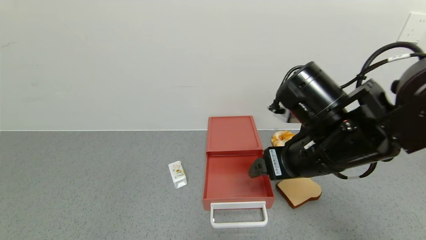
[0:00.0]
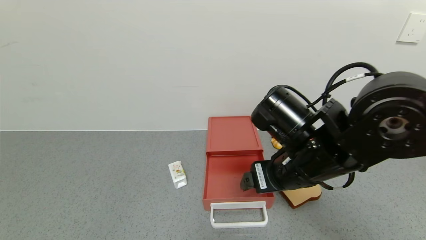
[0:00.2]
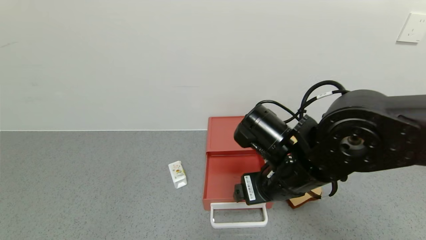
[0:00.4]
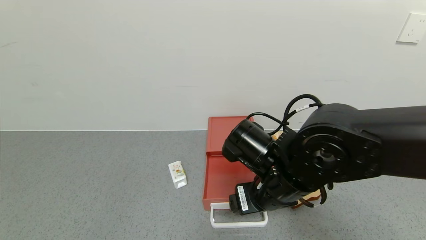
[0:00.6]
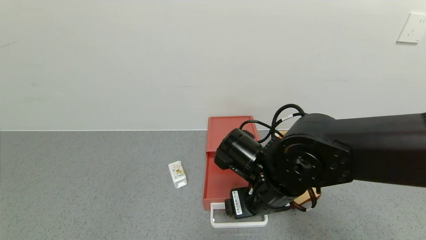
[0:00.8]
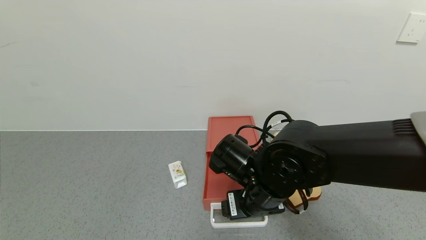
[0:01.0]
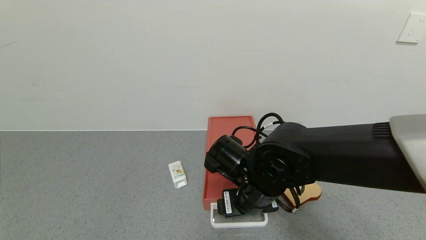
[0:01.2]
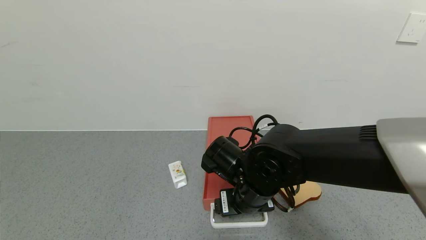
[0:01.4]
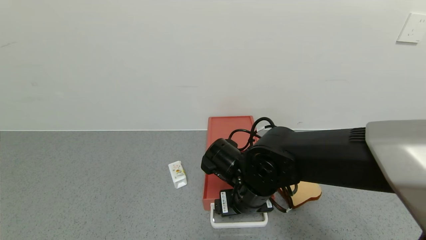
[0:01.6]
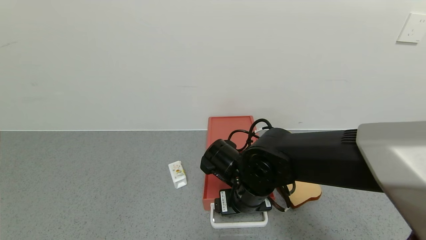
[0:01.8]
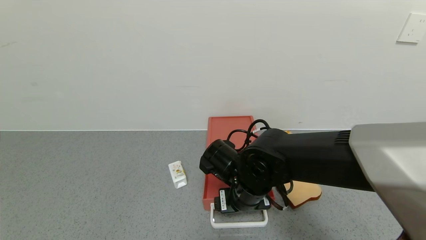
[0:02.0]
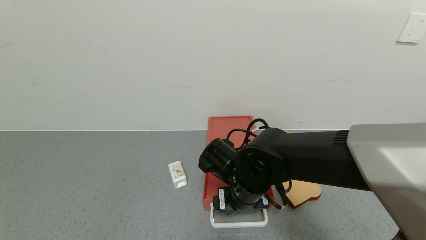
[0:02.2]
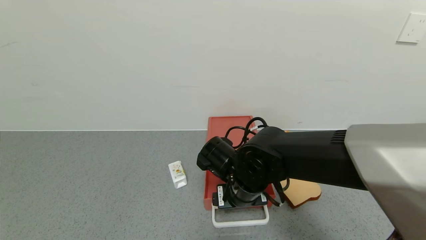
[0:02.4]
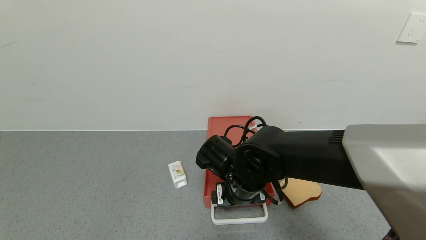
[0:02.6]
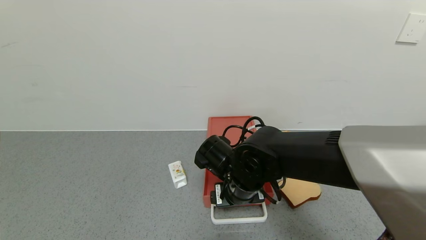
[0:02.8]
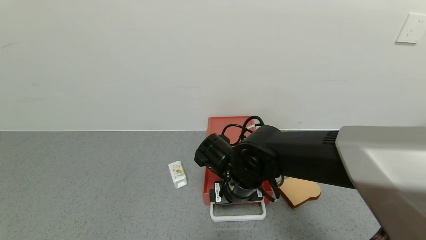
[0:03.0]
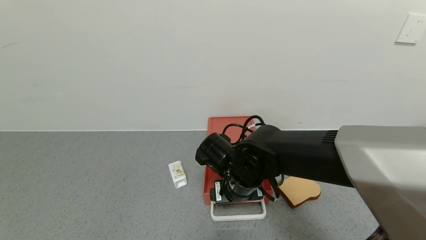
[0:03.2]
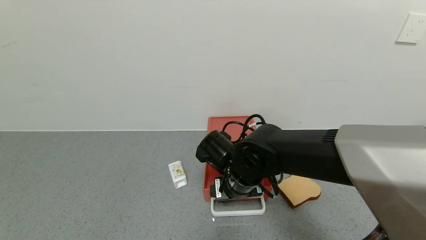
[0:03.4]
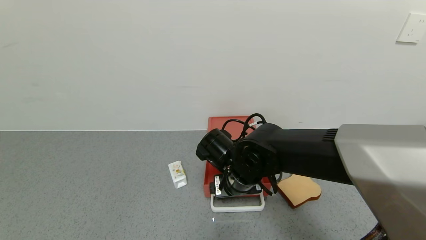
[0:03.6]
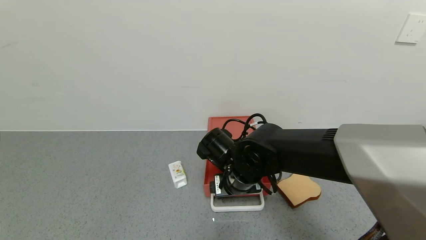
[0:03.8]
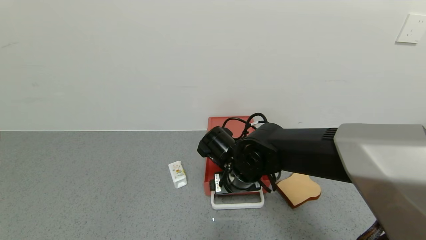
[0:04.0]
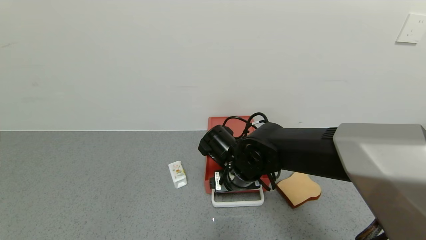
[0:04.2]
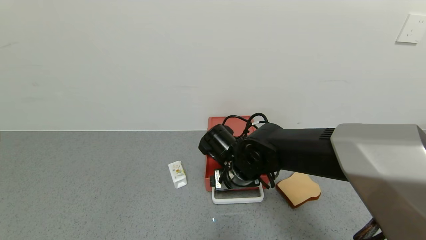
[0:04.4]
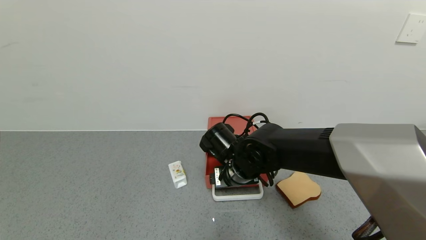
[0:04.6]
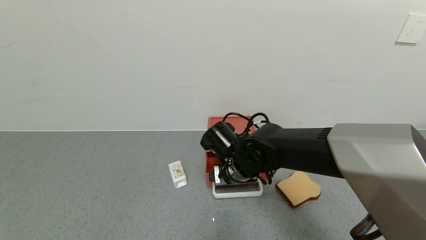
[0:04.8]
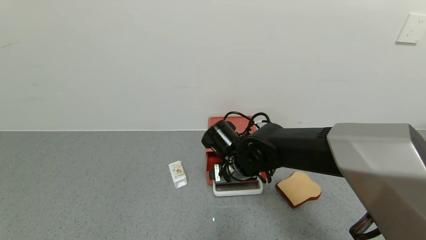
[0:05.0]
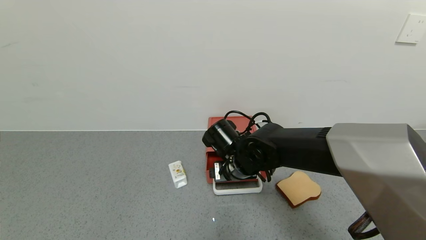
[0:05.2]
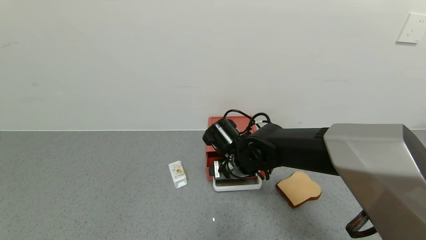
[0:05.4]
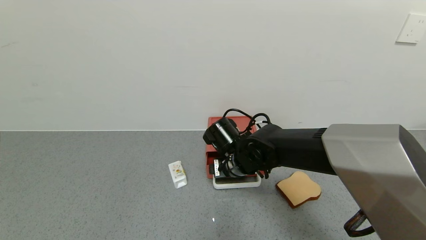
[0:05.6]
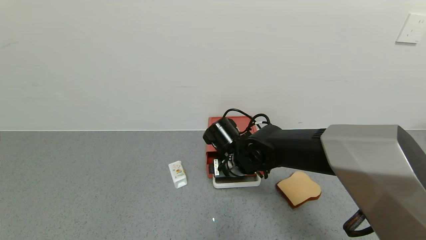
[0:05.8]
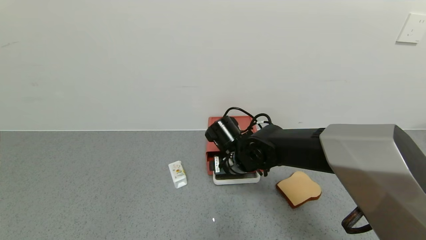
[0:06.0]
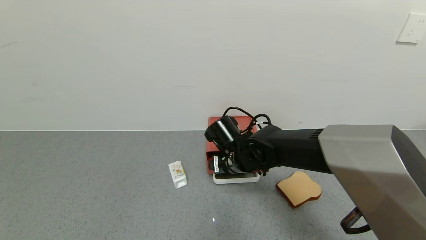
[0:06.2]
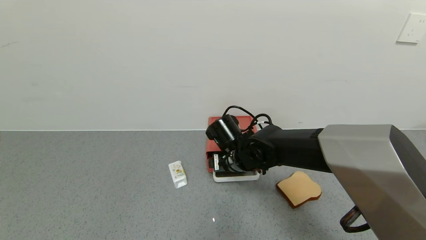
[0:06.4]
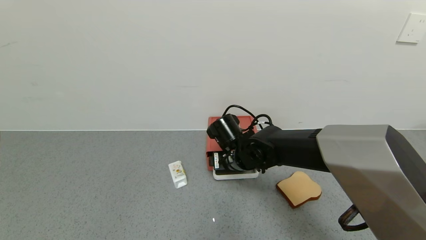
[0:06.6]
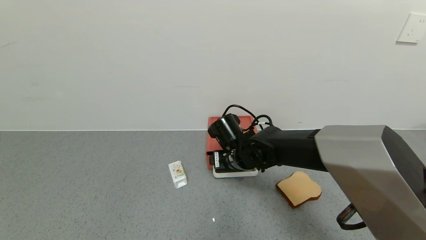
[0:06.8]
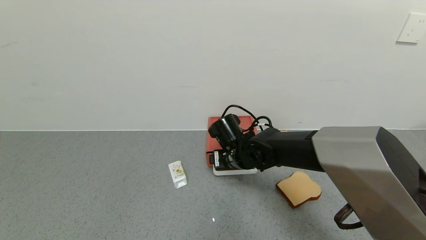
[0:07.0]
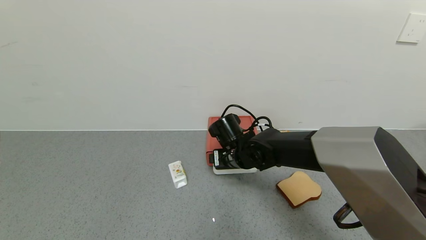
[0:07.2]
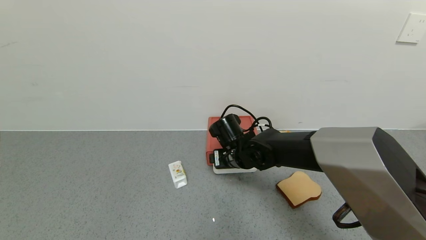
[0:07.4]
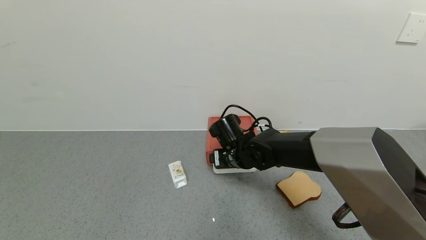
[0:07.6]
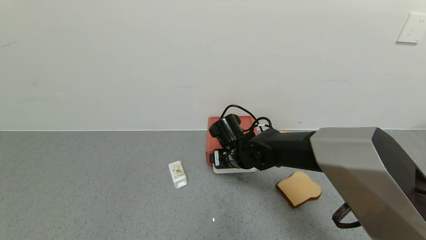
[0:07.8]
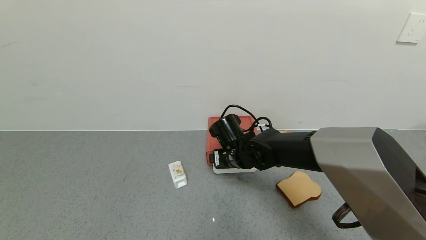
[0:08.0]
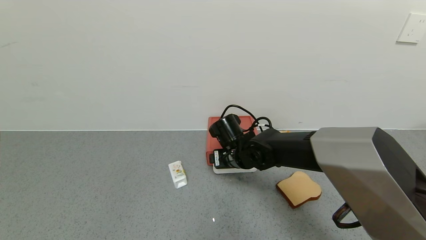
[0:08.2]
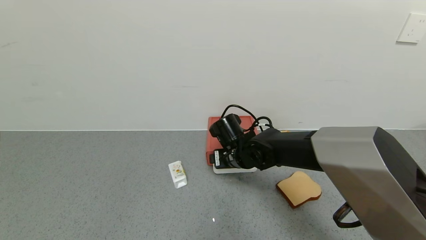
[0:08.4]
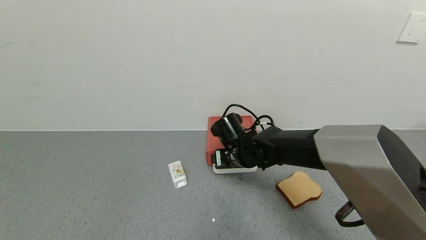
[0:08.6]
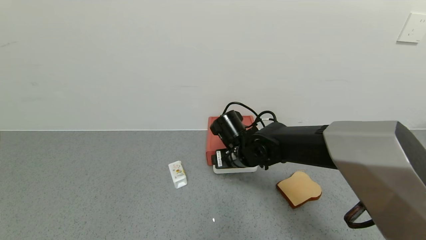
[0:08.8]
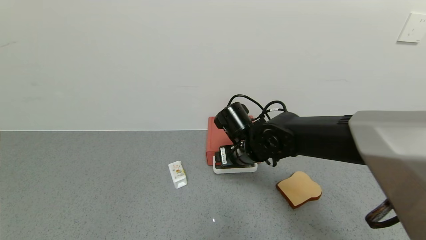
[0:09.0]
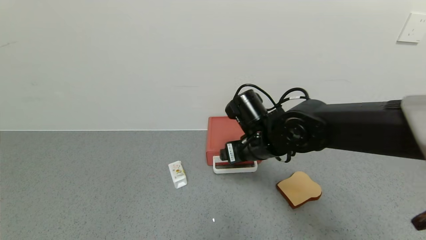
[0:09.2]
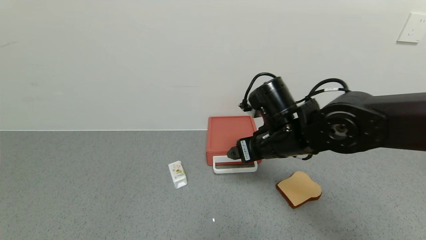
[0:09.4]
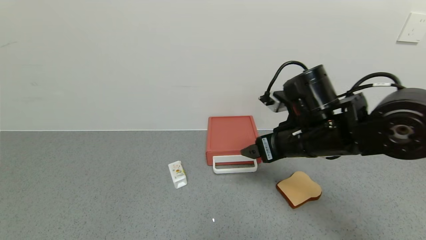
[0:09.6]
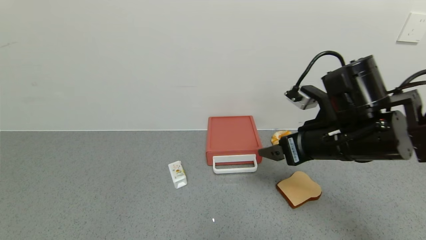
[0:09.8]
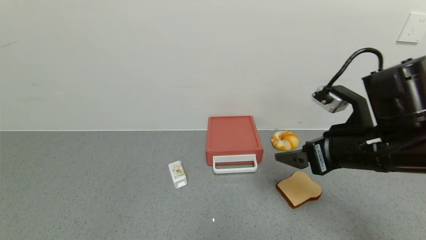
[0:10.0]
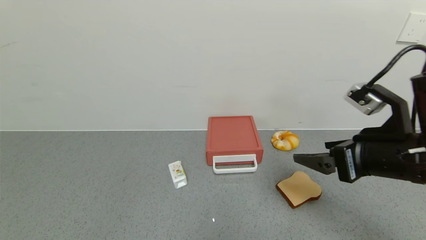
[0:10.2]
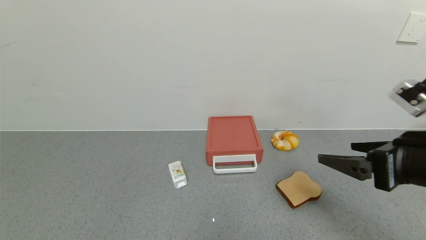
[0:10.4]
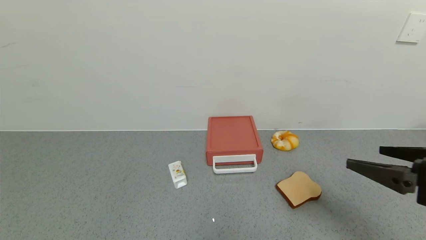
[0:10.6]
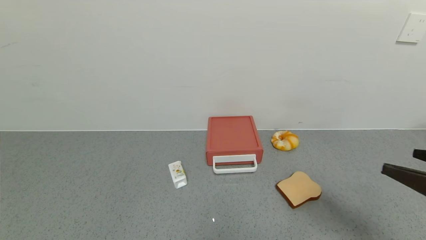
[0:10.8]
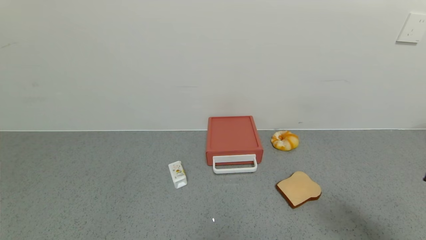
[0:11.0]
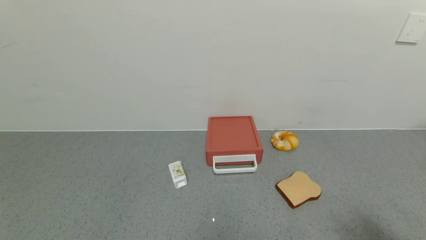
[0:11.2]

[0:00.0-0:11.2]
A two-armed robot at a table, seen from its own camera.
Task of the whole recording: use the gripper to open the drawer and close the red drawer.
Step, 0:00.0 to 0:09.2: Close the red drawer with the right gripper.
0:00.0 to 0:01.6: The right gripper is displaced downward and to the left by about 15 cm.
0:01.6 to 0:03.2: There are only small adjustments of the grippers.
0:03.2 to 0:06.4: The grippers stay close to where they were, moving slightly.
0:06.4 to 0:08.0: The grippers move only a little.
0:08.0 to 0:09.6: The right gripper is displaced upward, to the right and backward by approximately 20 cm.
0:09.6 to 0:11.2: The right gripper travels backward and to the right by roughly 30 cm.

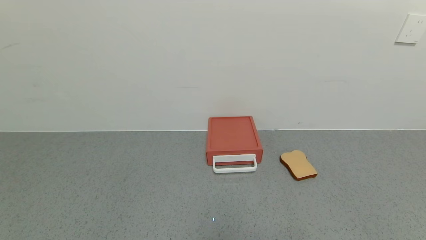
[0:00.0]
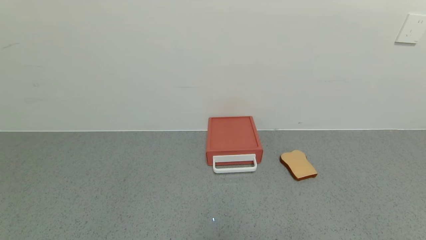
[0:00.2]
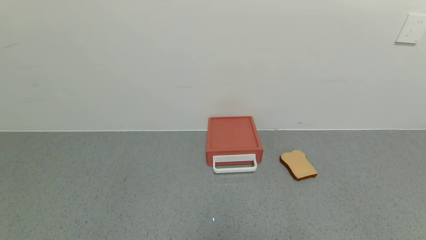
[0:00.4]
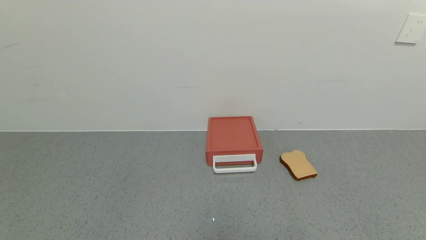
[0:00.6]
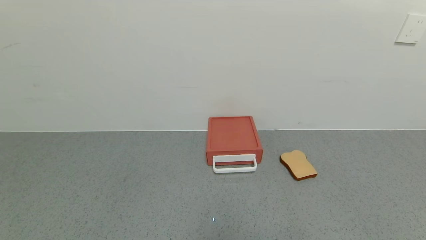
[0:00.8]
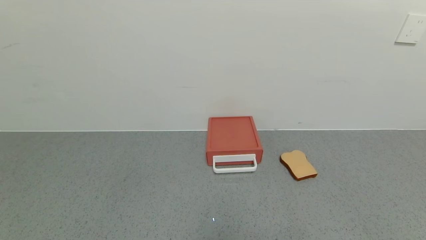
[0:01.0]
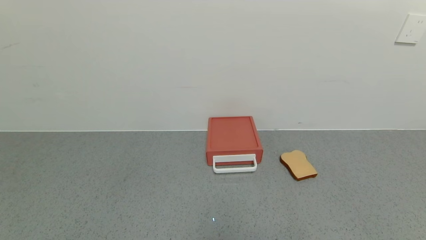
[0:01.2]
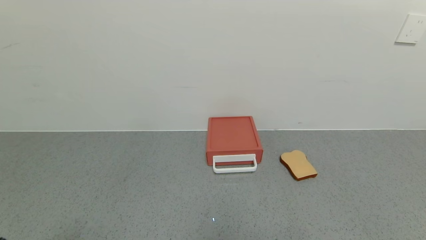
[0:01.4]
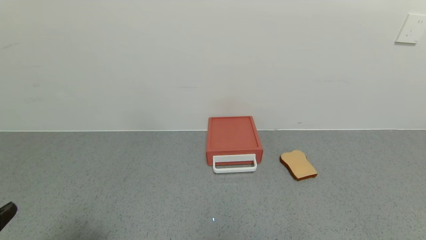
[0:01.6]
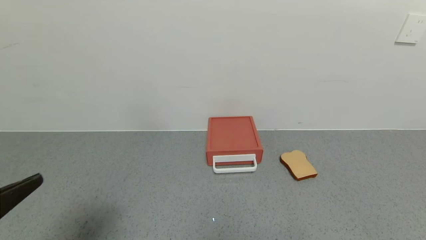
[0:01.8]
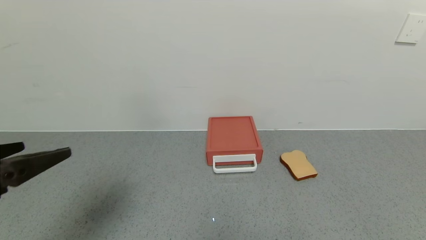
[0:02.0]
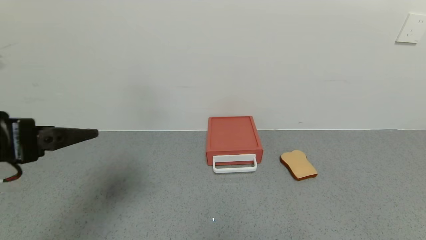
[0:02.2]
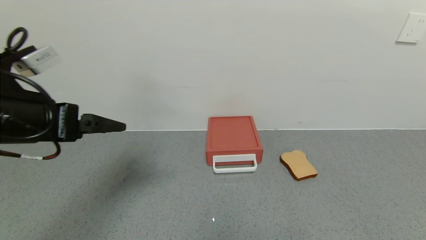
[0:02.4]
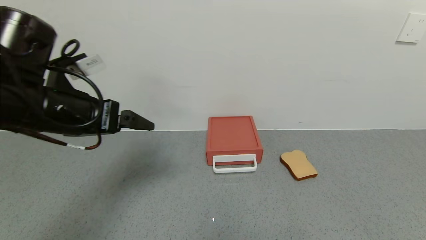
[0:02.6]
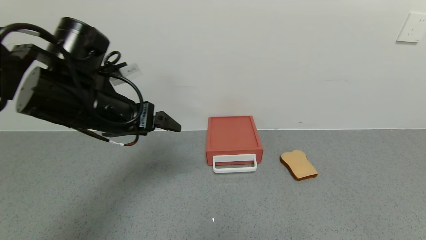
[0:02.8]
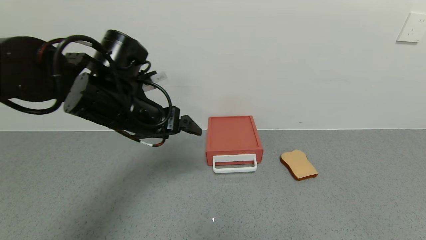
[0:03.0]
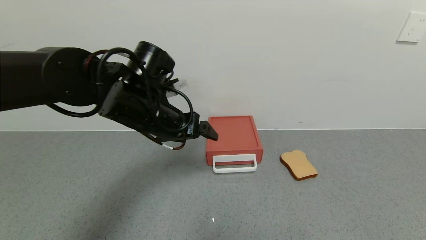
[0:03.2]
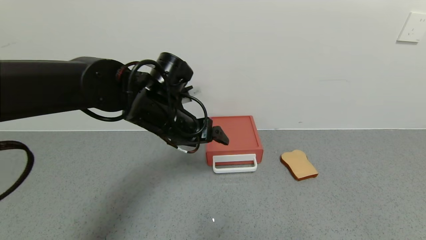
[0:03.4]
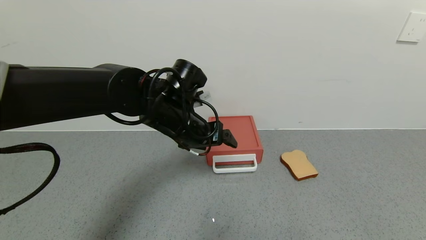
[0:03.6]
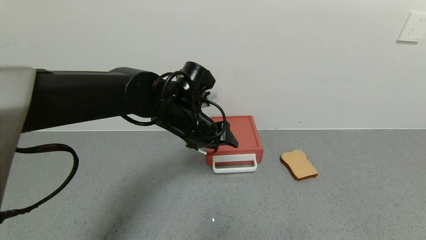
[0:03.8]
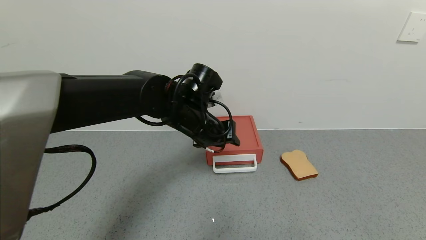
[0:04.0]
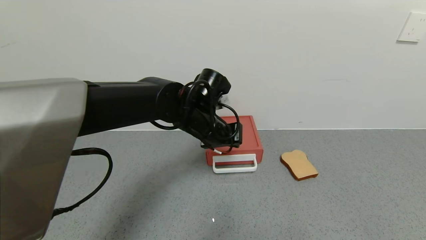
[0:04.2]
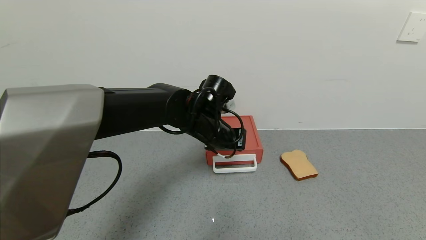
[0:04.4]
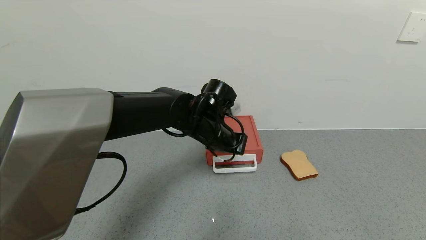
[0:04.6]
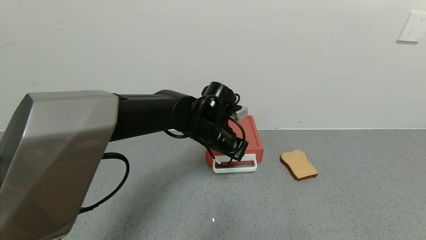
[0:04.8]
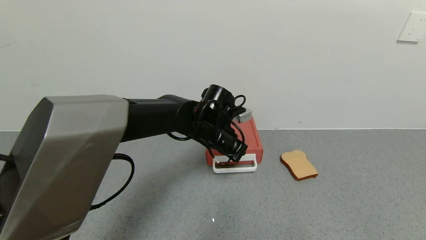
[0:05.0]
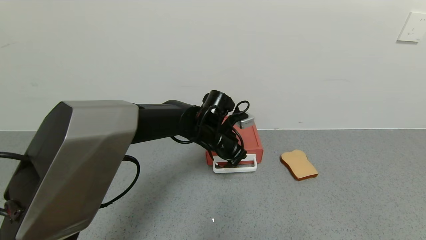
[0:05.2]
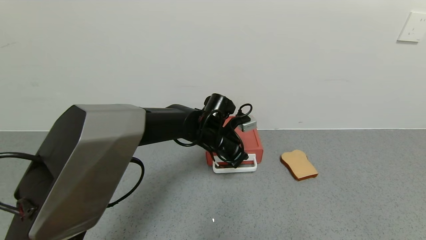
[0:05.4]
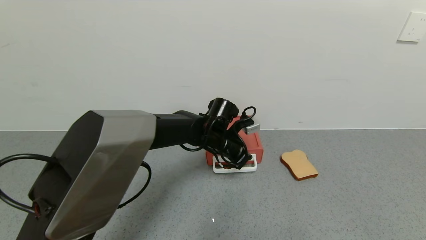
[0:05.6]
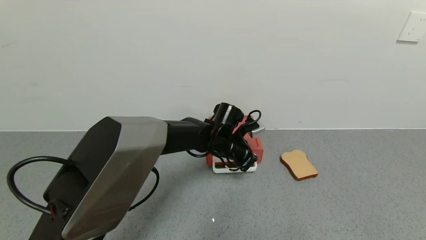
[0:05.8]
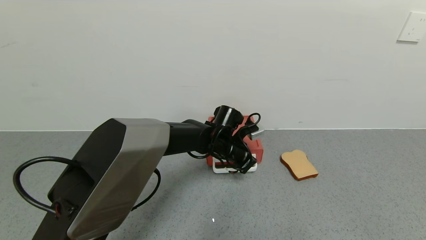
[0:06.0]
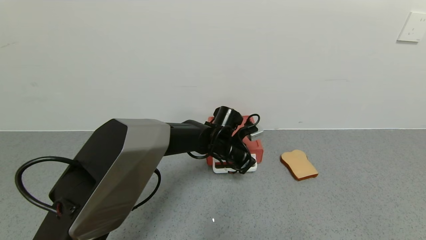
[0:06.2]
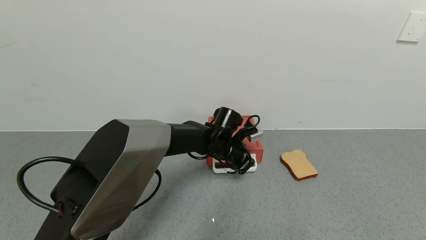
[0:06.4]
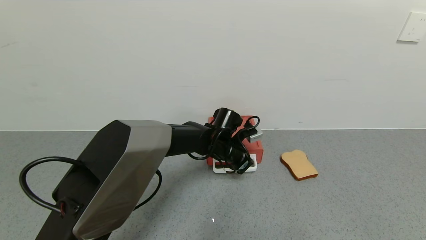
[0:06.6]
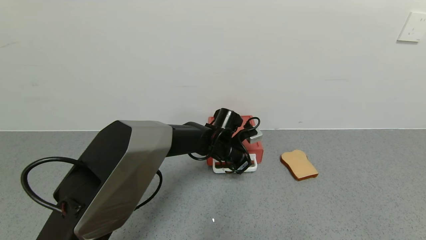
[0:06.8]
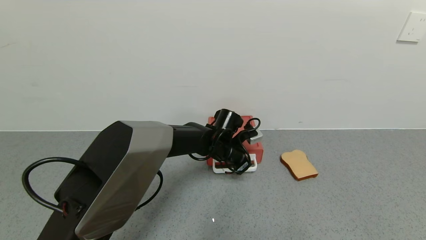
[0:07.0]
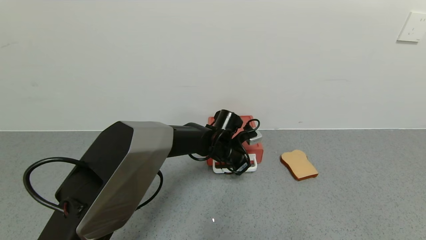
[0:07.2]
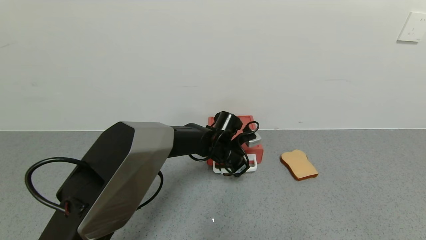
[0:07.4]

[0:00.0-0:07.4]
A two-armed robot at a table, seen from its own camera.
Task of the whole recording: use the gripper to open the drawer and close the red drawer.
0:01.4 to 0:03.0: The left gripper heads forward and to the right, covering some 35 cm.
0:03.0 to 0:04.4: The left gripper shifts some 15 cm to the right, downward and forward, and closes.
0:04.4 to 0:06.0: The left gripper moves downward, approximately 10 cm.
0:06.0 to 0:07.4: There are only small adjustments of the grippers.
